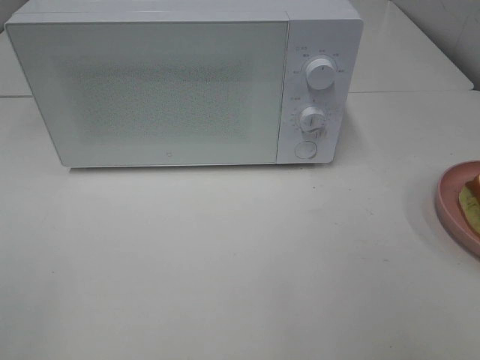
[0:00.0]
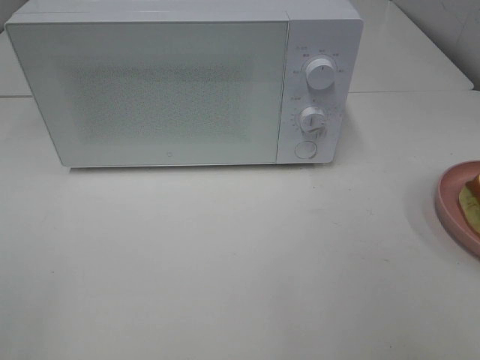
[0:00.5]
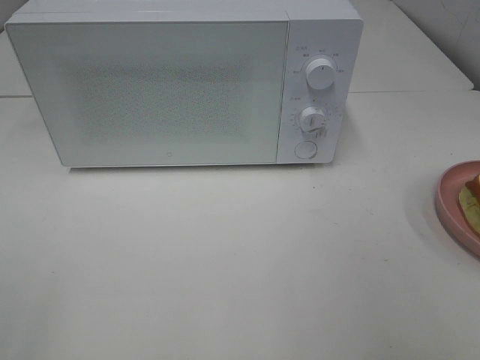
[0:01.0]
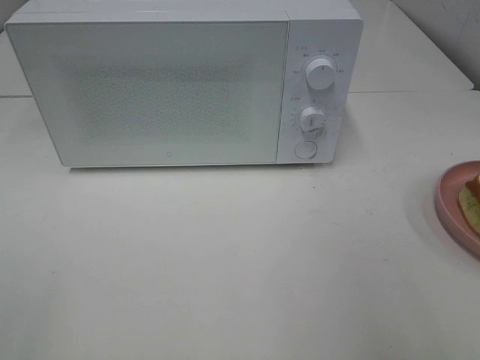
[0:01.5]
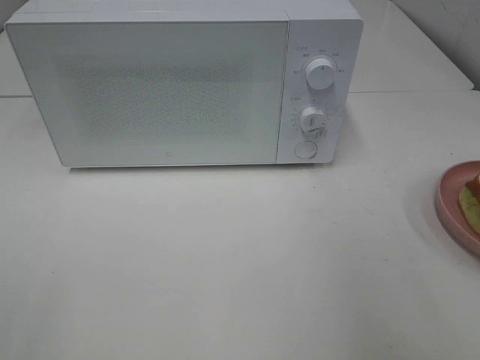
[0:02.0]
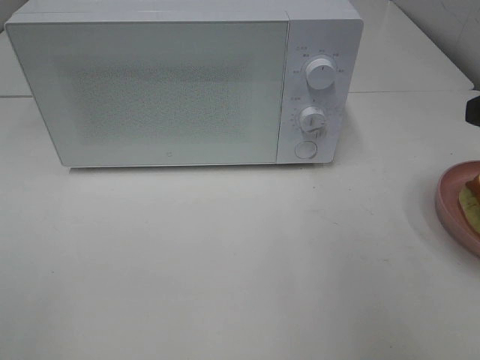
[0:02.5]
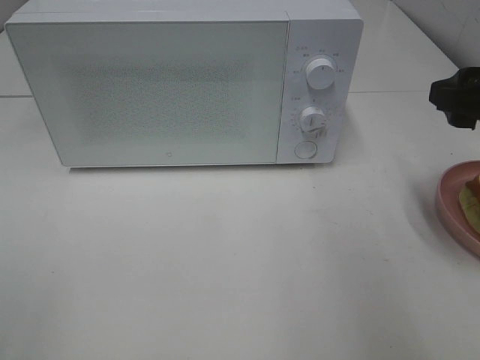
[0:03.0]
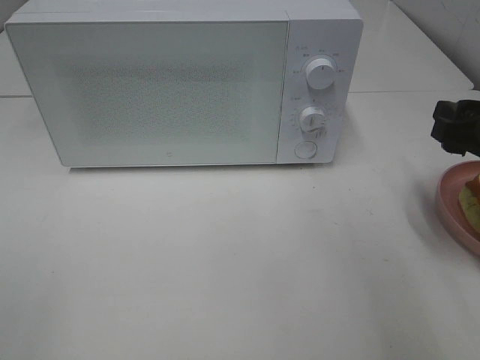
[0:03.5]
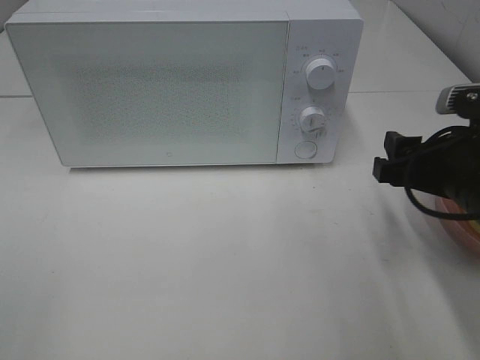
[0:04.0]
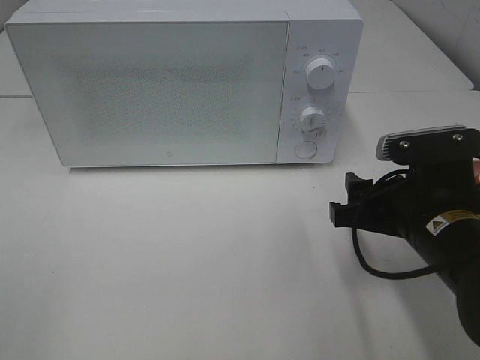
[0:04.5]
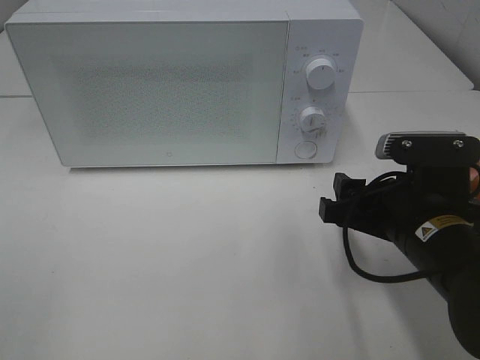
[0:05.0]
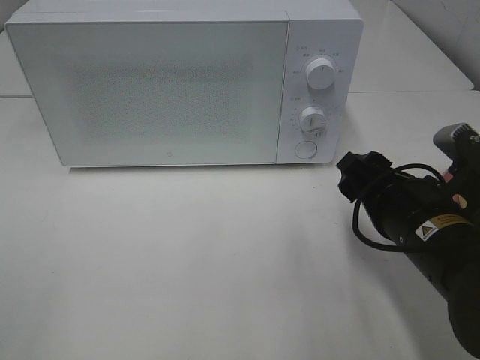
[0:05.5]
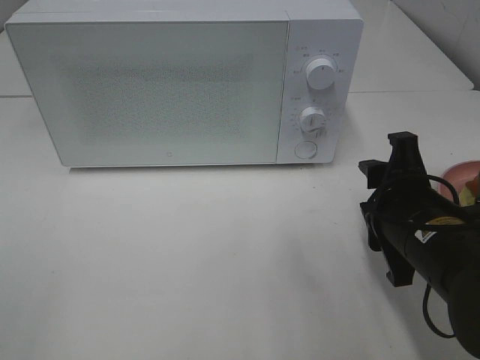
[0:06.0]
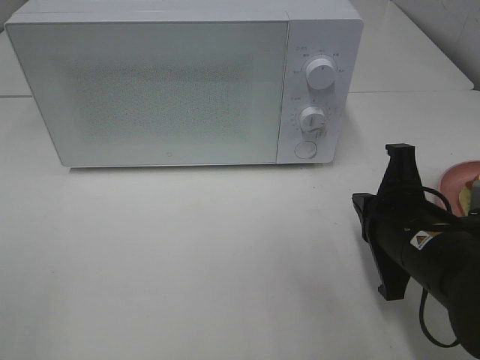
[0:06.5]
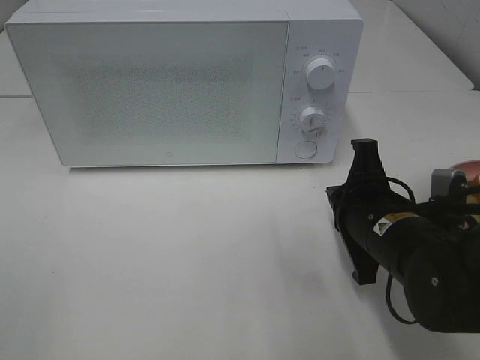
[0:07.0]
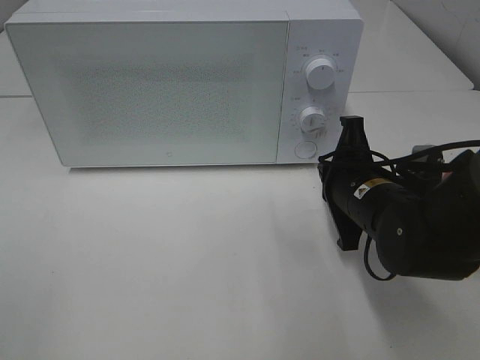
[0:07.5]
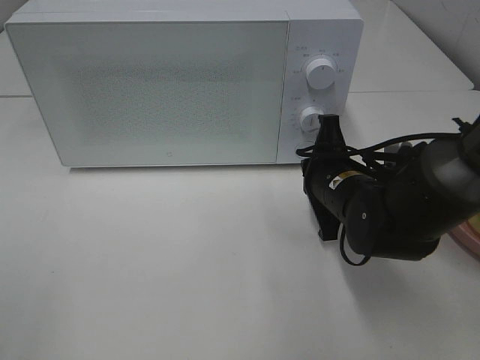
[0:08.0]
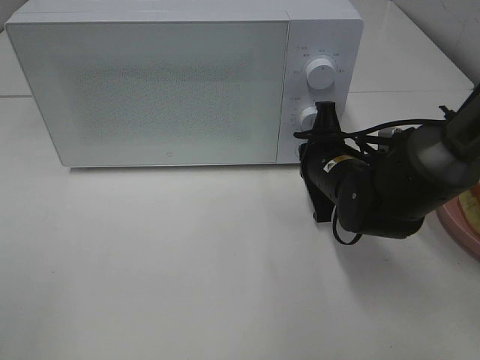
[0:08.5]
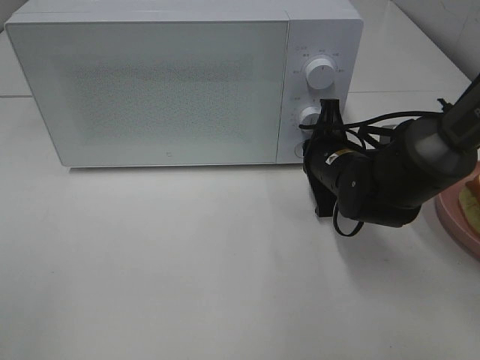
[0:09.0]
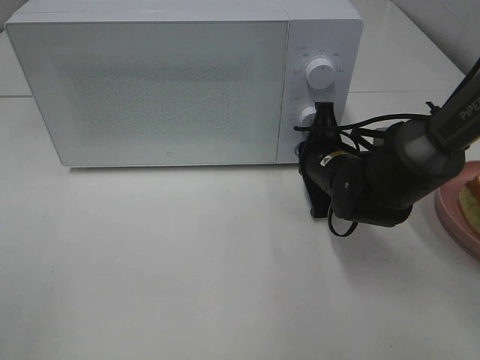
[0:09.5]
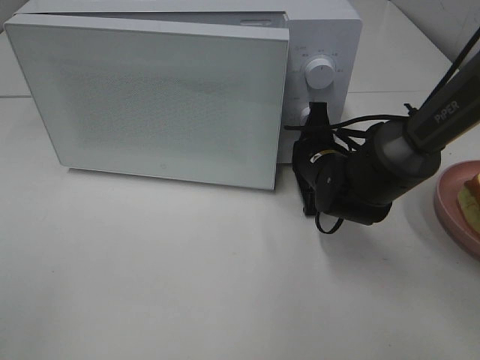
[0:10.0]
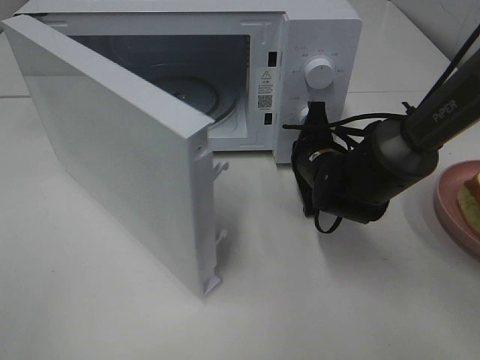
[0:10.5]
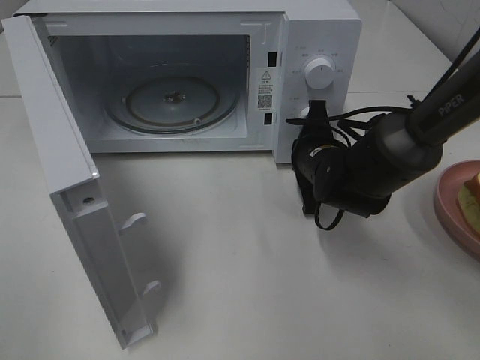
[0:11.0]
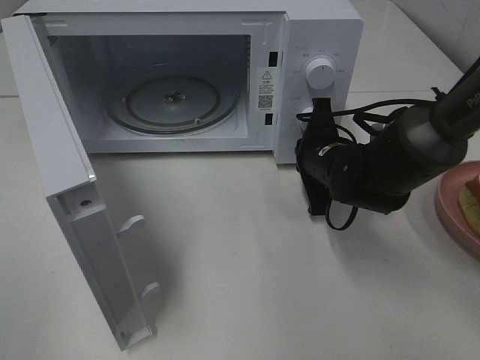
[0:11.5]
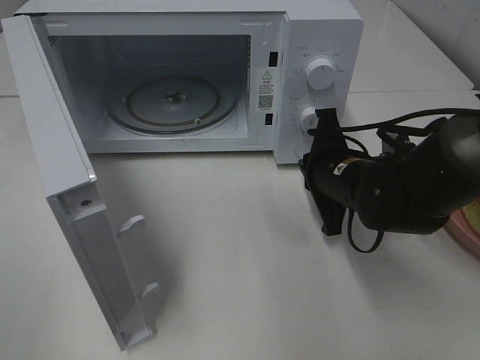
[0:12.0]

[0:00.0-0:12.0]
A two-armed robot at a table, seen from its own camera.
Task of the whole recording: Heat Sandwich.
Step, 0:00.0 to 0:11.5: Right hand: press the switch.
0:02.0 to 0:04.0: The right gripper moves downward, forward and to the left, about 15 cm.
0:04.0 to 0:06.0: The right gripper changes place by about 5 cm.
0:06.0 to 0:08.0: The right gripper goes approximately 10 cm forward, and closes up.
0:08.0 to 0:10.0: The right gripper travels forward by approximately 5 cm.
0:10.0 to 0:12.0: The right gripper heads backward, covering some 5 cm.

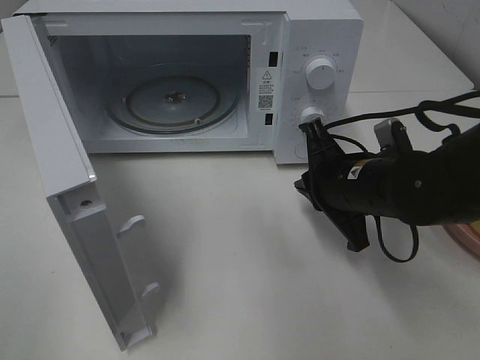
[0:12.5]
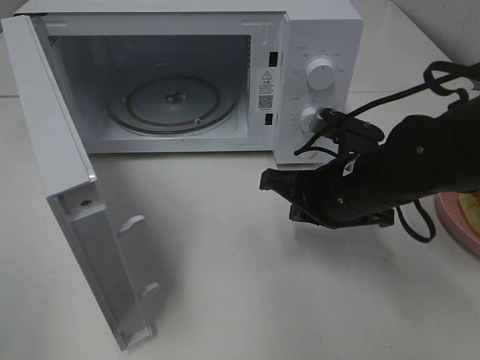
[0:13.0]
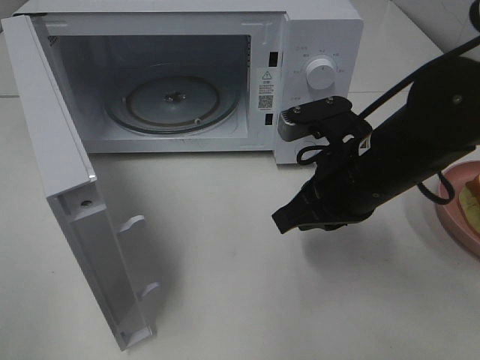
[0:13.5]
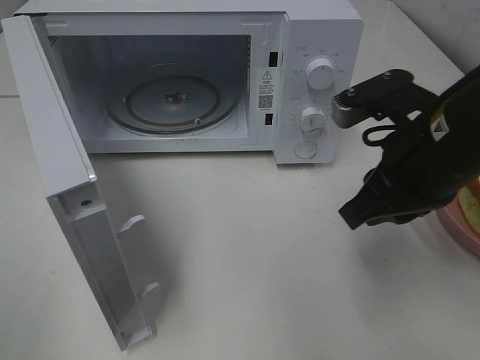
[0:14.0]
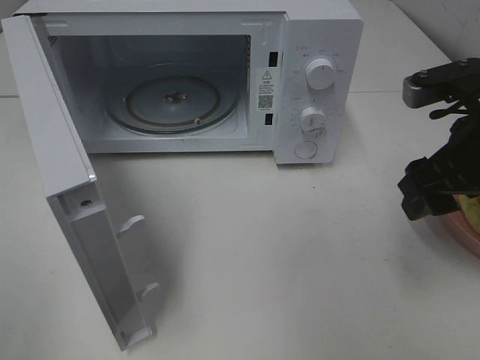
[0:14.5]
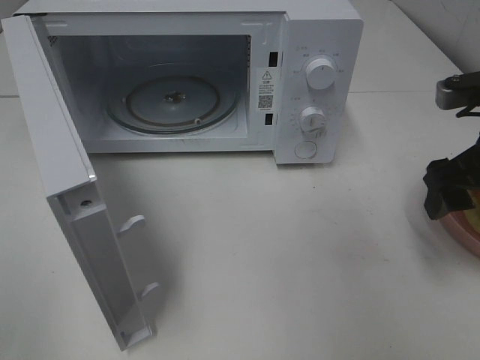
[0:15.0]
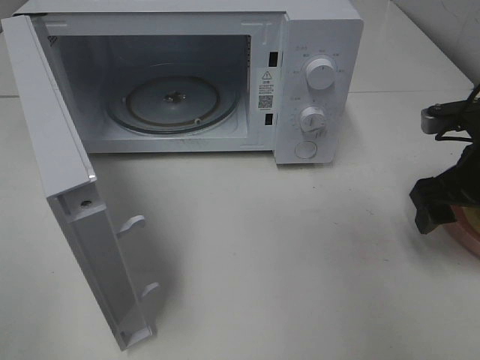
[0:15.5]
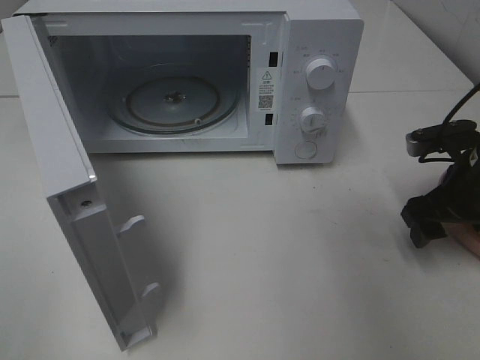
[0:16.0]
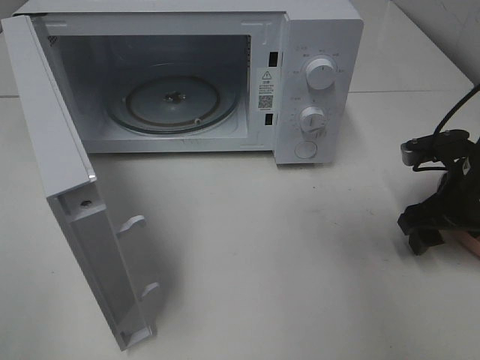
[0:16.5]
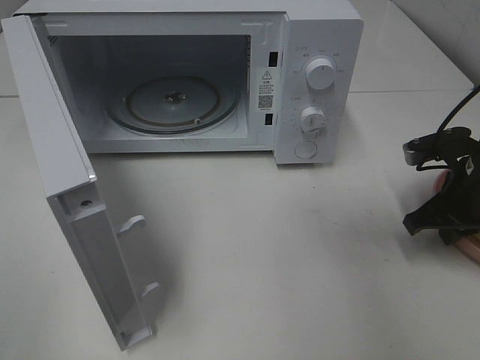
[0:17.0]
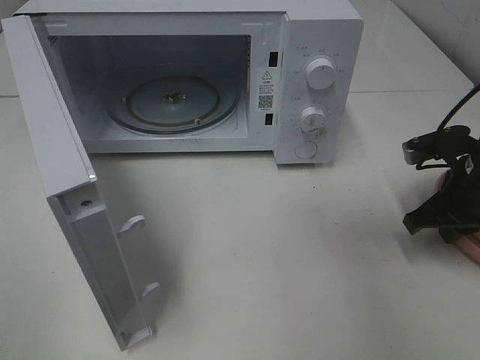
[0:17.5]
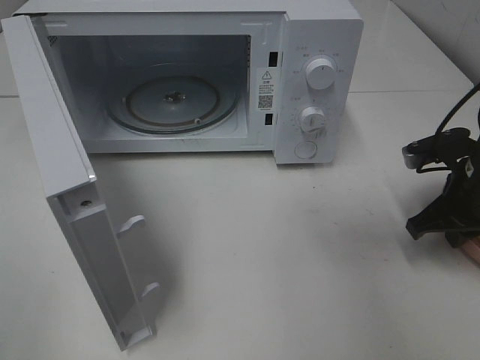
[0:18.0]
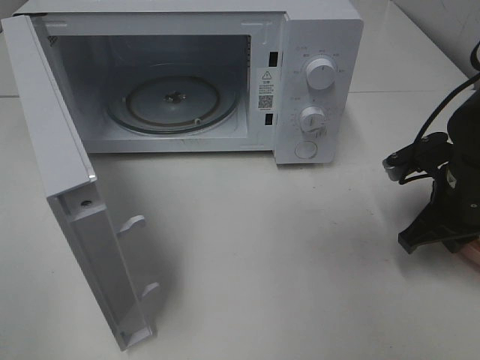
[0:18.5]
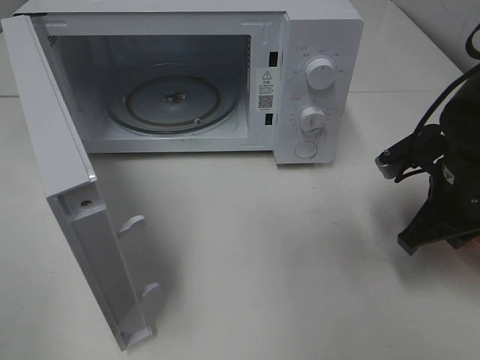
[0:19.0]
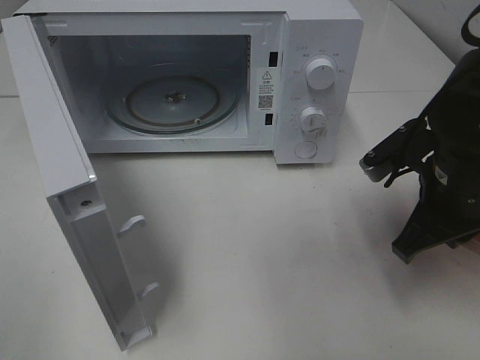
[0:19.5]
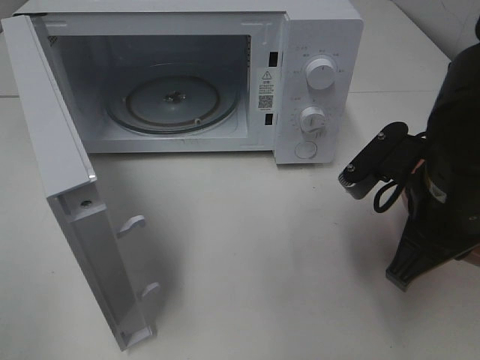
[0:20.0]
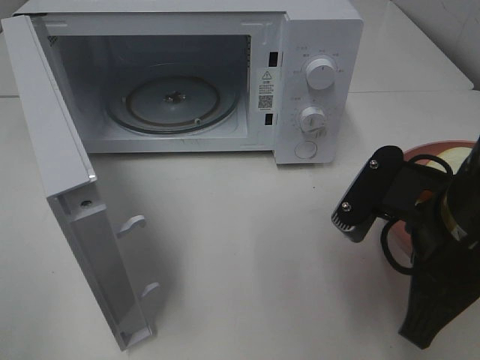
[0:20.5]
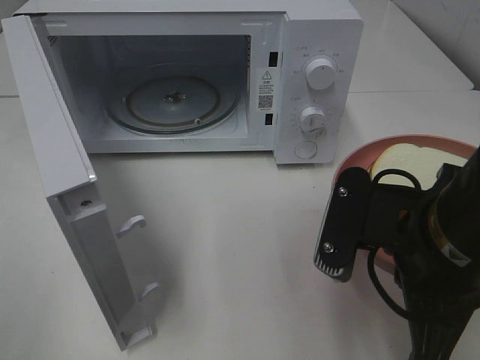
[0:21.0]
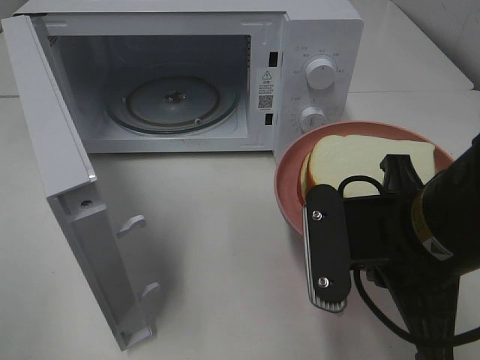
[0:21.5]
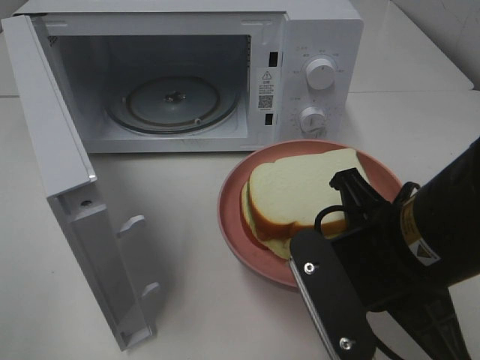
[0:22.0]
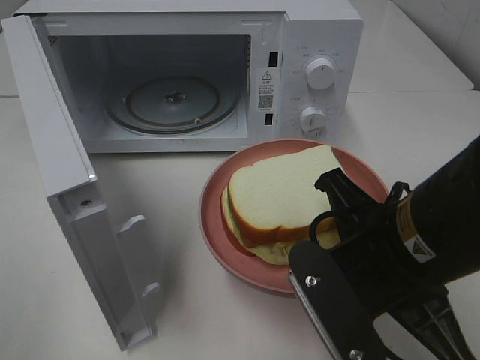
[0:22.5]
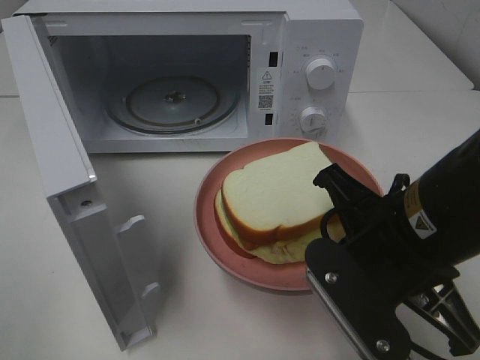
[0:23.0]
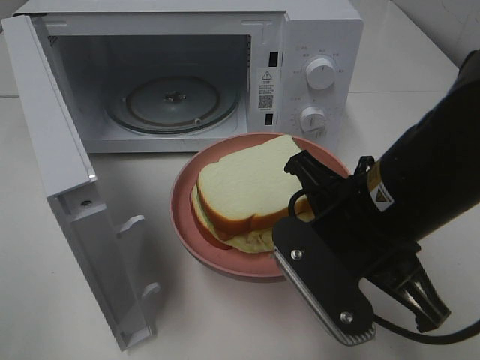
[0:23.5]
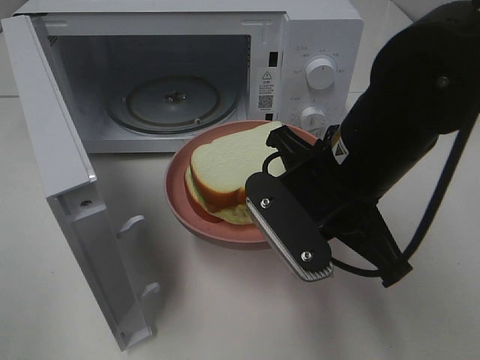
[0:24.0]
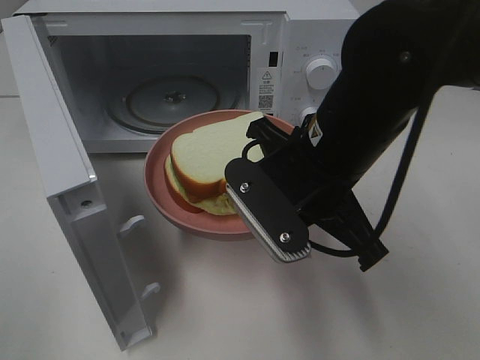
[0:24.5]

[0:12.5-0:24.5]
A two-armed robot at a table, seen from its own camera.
Task of the whole recording: Heat Sandwich.
Step, 0:12.5 to 0:17.0: Right hand: grab the plate with the sandwich.
0:12.5 to 0:14.5: The right gripper is displaced upward and to the right by approximately 15 cm, and opens.
0:14.5 to 0:16.5: The right gripper heads downward and forward, covering approximately 10 cm.
0:16.5 to 0:18.5: The right gripper closes.
0:18.5 to 0:20.5: The right gripper goes approximately 15 cm backward, to the left and upward.
0:22.5 to 0:24.5: The right gripper goes about 10 cm forward.

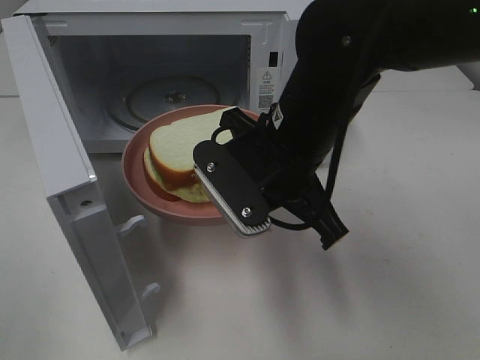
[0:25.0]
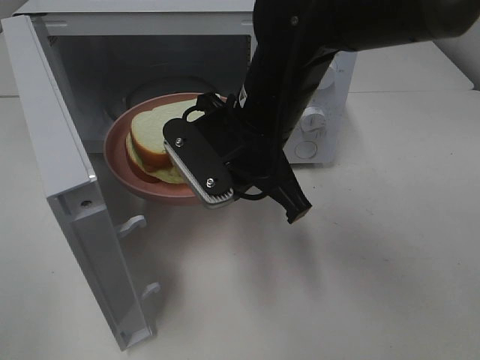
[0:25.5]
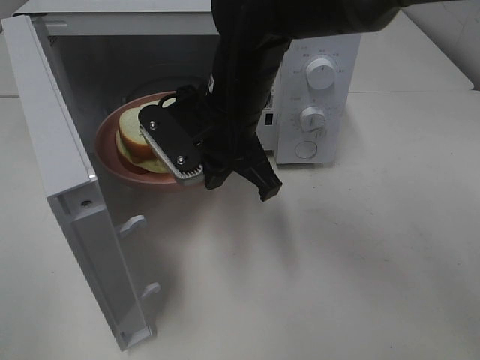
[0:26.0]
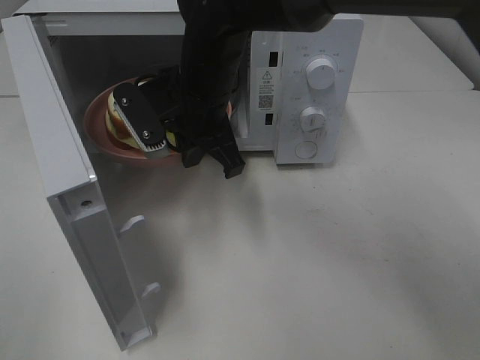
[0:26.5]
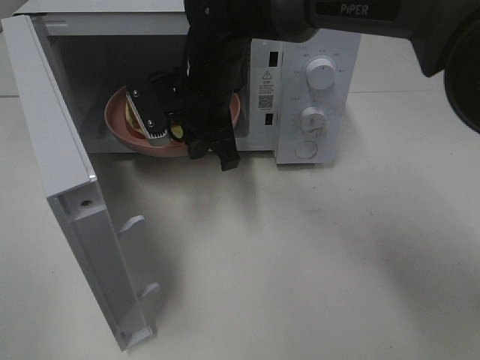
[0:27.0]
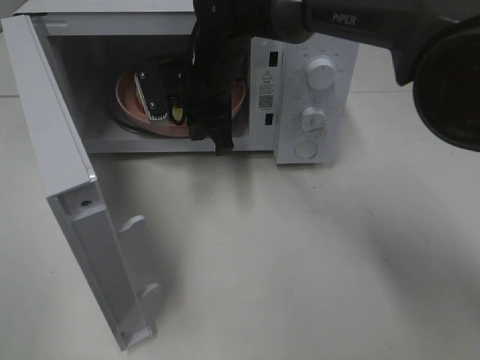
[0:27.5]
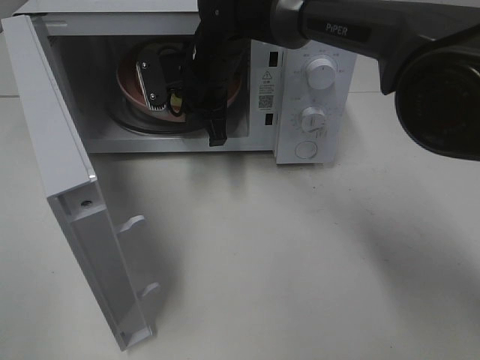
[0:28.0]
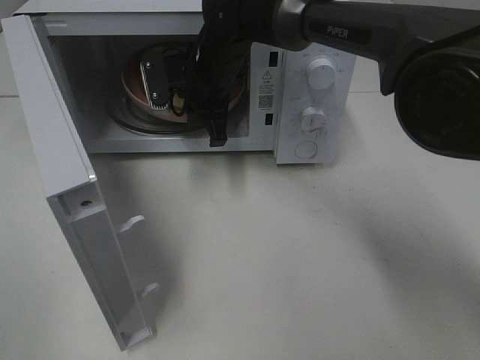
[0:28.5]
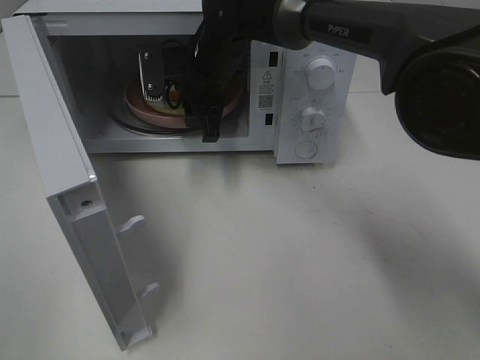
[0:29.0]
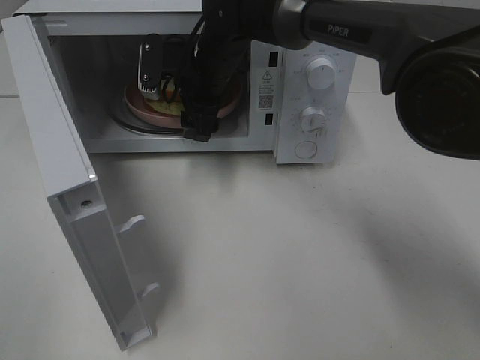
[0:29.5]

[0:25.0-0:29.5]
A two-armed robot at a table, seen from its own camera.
Task of the whole recording: Heat Sandwich.
0:25.0 to 0:27.0: The right gripper goes roughly 15 cm forward and to the left.
0:27.0 to 0:29.5: The right gripper is displaced forward by approximately 5 cm, and opens up.
